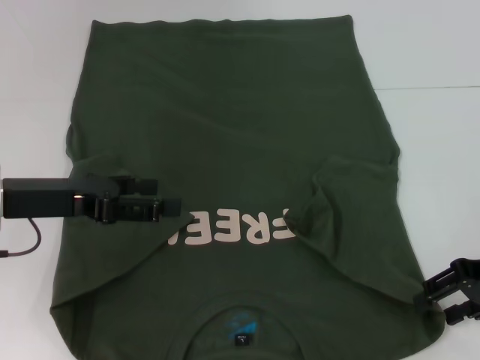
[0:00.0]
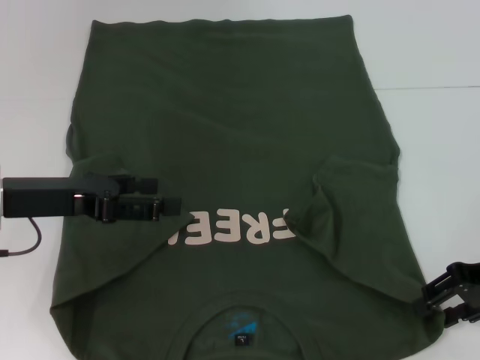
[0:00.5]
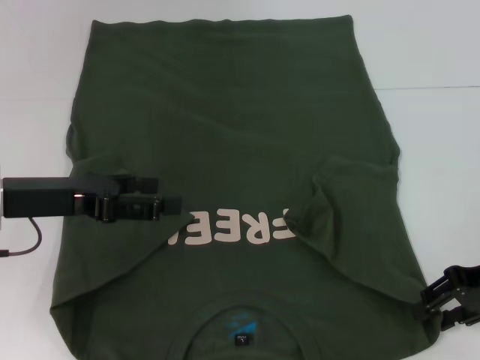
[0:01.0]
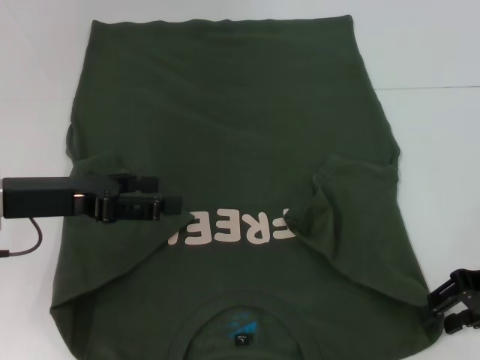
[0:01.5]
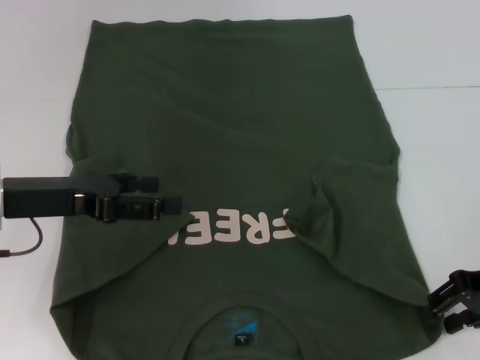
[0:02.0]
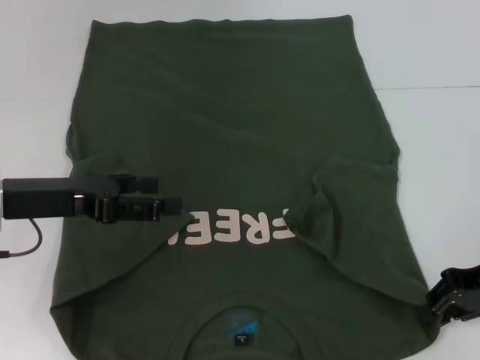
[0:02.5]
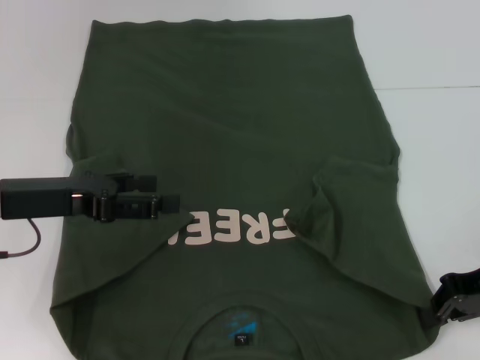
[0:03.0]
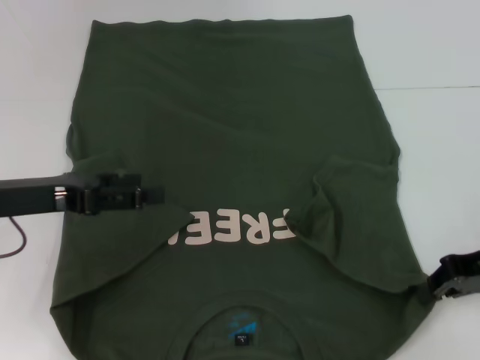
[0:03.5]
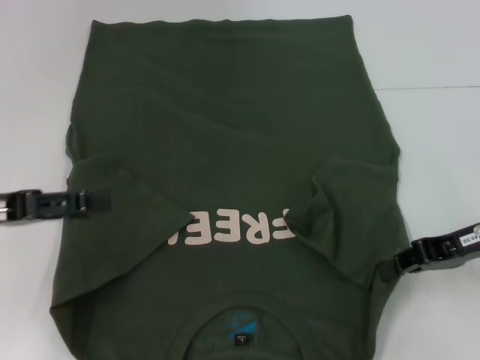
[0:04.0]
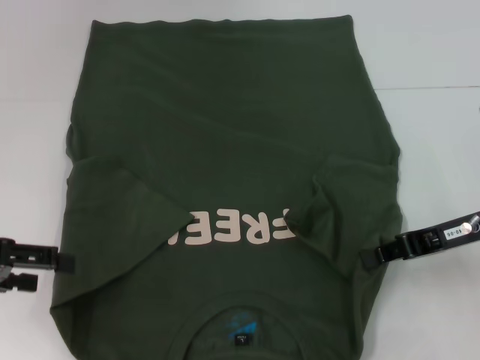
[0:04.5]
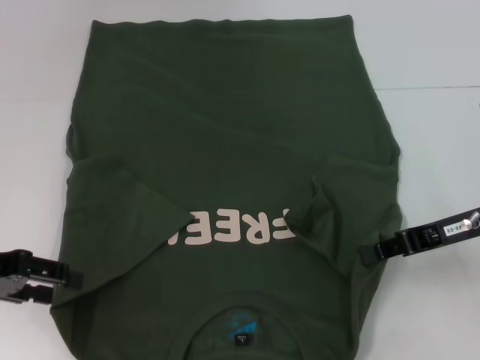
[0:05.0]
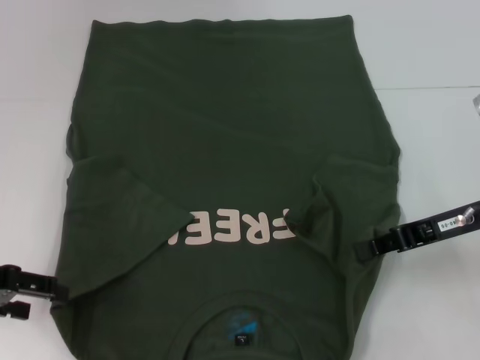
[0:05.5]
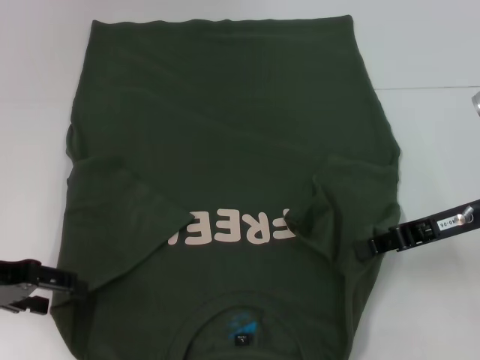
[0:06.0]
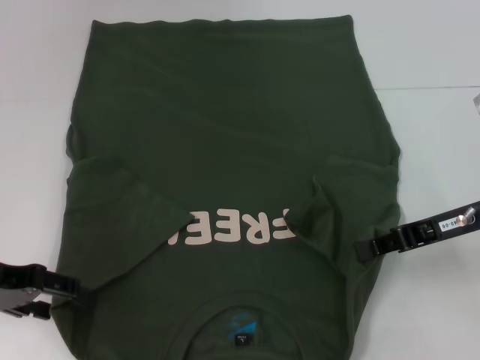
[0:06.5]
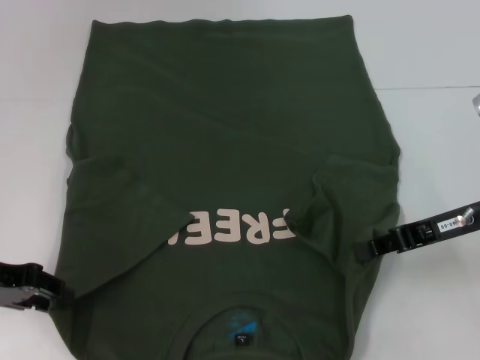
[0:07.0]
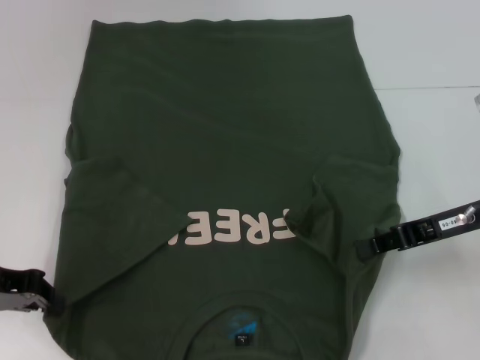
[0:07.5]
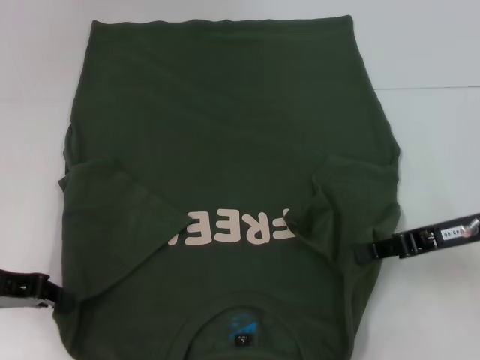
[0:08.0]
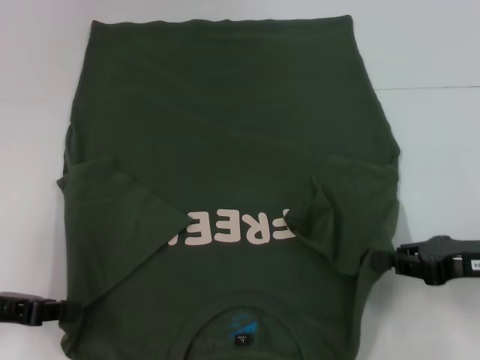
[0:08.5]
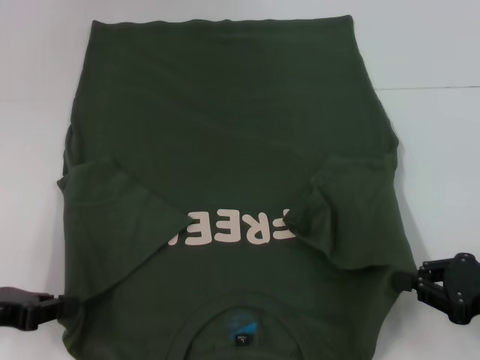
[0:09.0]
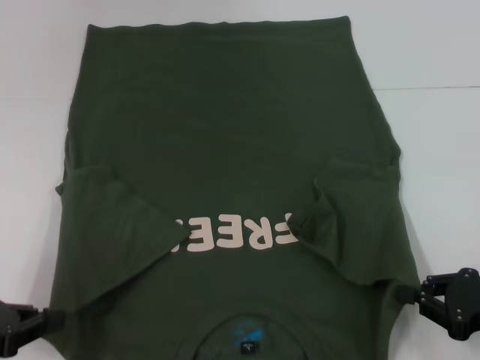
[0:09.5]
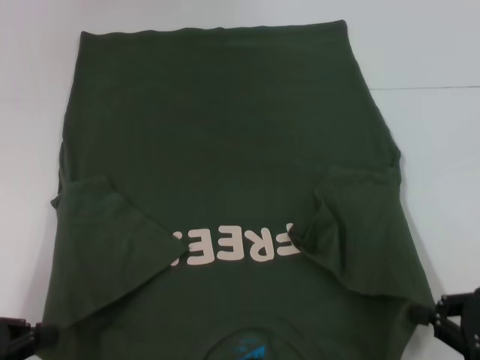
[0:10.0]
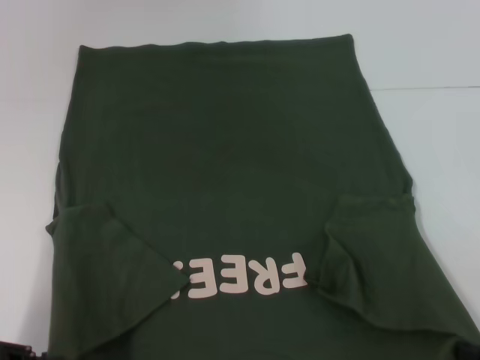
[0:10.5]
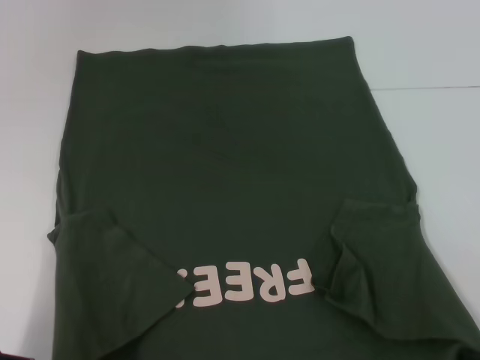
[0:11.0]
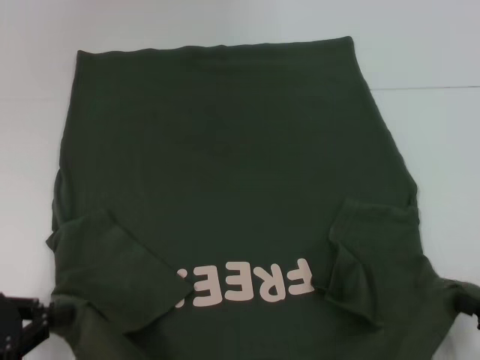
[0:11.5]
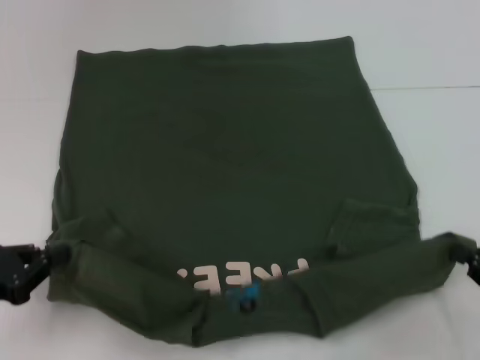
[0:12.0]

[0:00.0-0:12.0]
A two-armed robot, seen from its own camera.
Step, 0:00.0 to 0:02.5: Grab the bottom right corner with your right hand.
Step, 0:03.0 to 0:07.0: Grab the bottom left corner with your left hand.
0:00.0 to 0:02.0: The right gripper closes its fingers.
0:02.0 to 0:04.0: The left gripper travels to the left by about 5 cm. The right gripper closes its fingers.
0:06.0 to 0:08.0: The left gripper closes its fingers.
0:08.0 to 0:10.0: The left gripper is displaced backward by some 10 cm, while the right gripper shifts roughly 15 cm backward, downward and to the right.

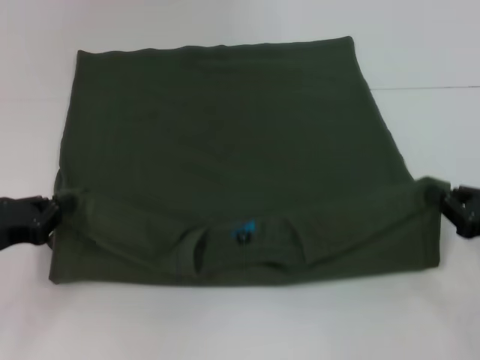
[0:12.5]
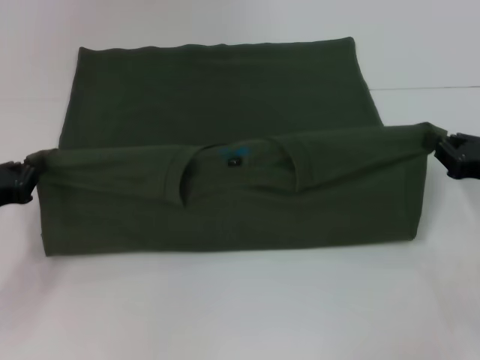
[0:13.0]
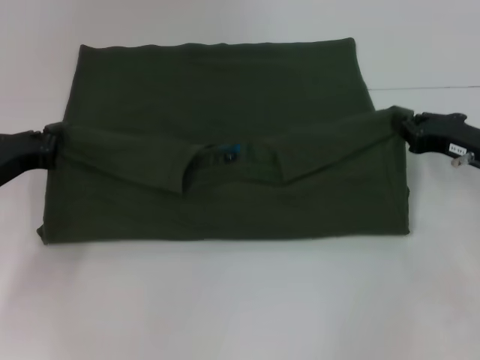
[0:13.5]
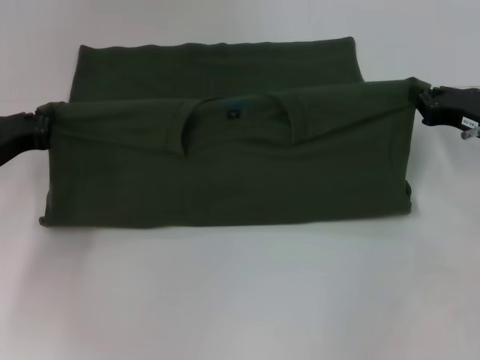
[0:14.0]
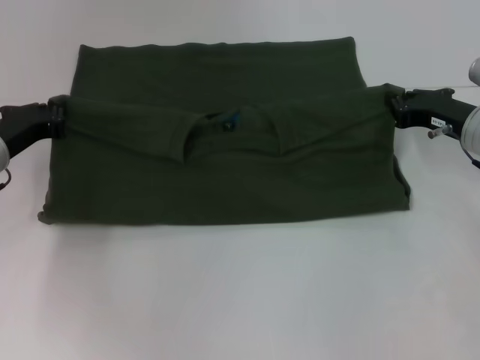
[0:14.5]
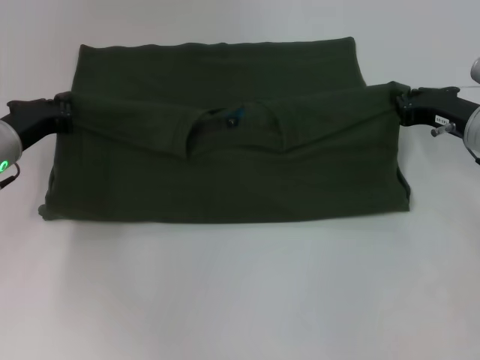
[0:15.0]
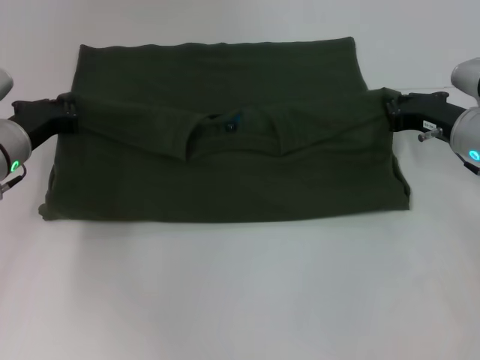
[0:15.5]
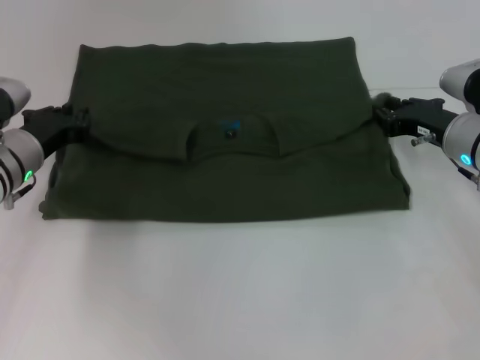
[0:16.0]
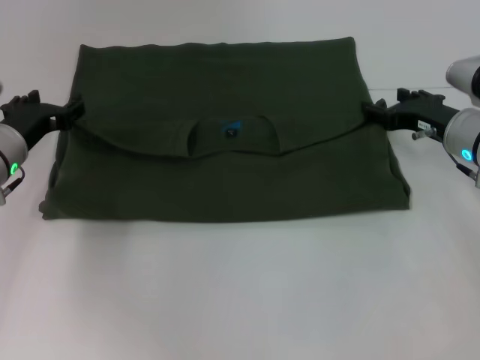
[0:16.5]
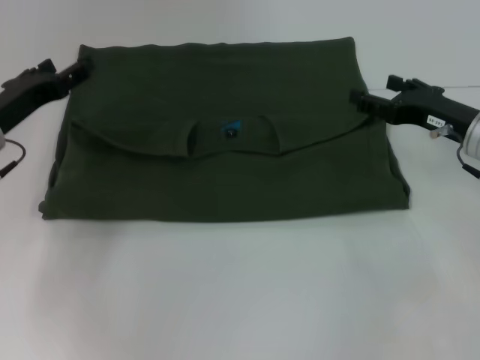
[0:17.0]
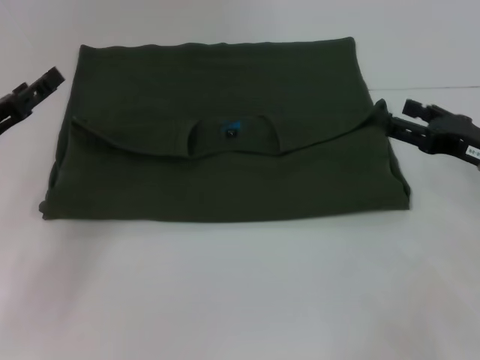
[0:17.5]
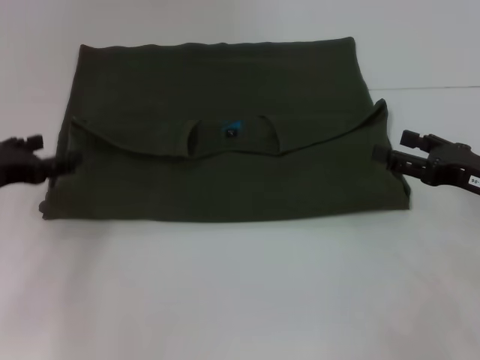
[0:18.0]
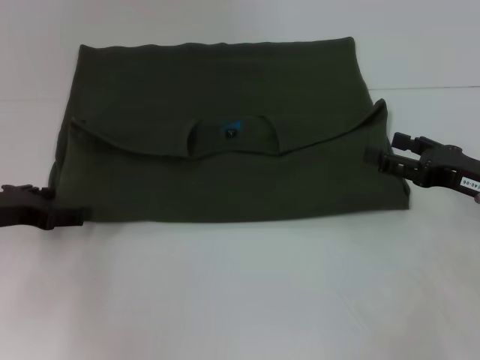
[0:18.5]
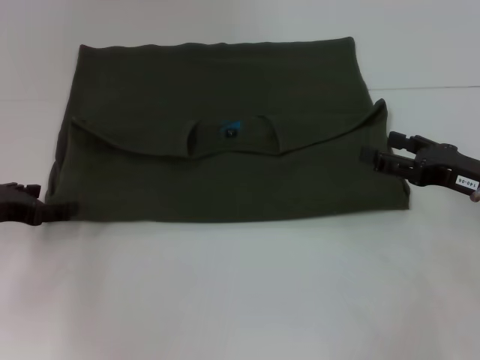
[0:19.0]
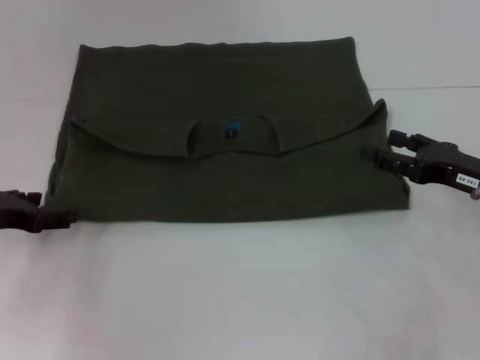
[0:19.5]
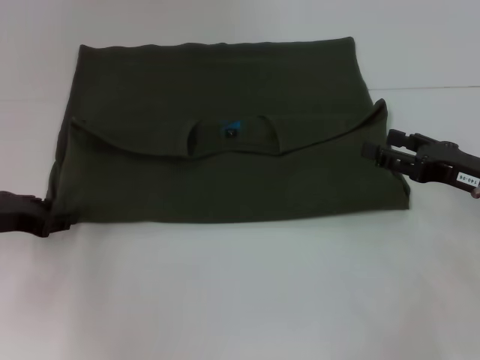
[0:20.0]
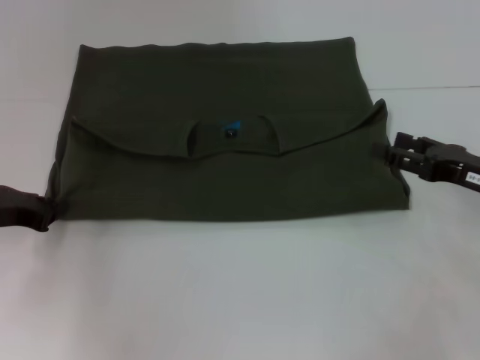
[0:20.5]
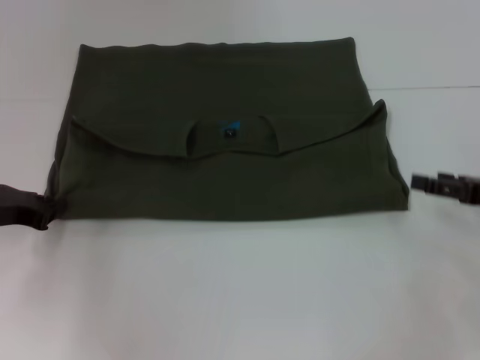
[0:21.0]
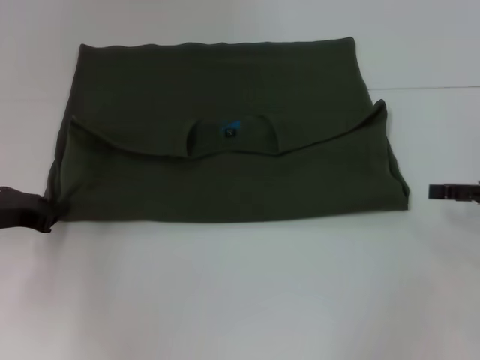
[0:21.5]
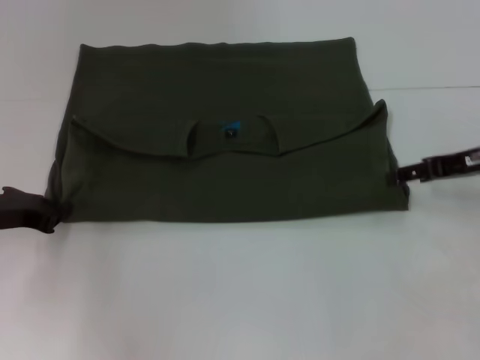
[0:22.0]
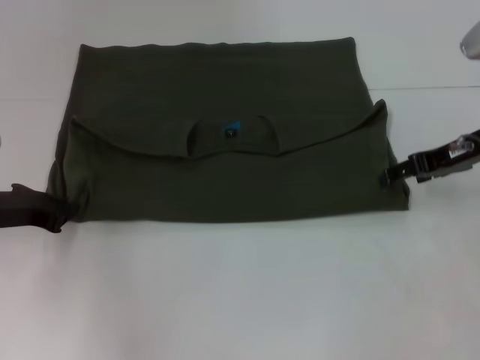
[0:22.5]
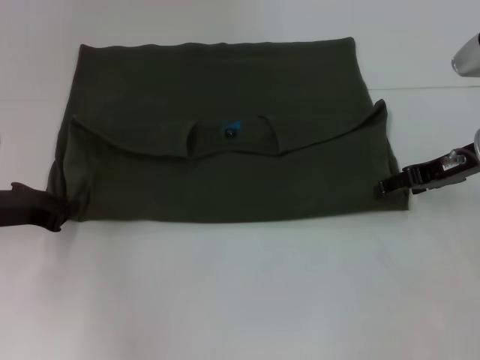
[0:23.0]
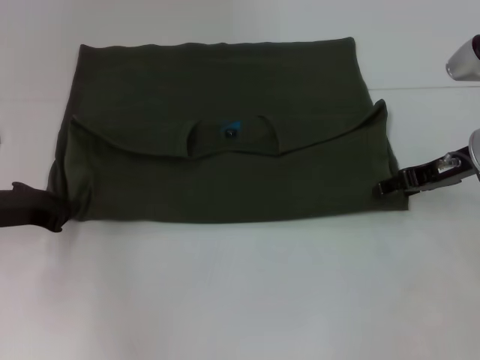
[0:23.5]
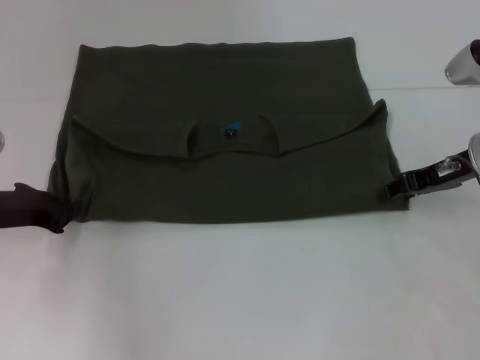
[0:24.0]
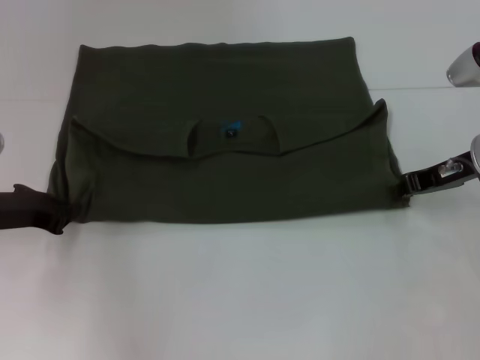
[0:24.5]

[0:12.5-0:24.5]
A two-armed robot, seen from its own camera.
Step, 0:12.5 to 0:16.5: Fold the clothes with your left hand.
Step, 0:12.5 to 0:16.5: Fold the clothes with your right hand.
0:12.5 to 0:14.5: The left gripper moves forward, approximately 10 cm. The right gripper goes approximately 15 cm forward and to the left.
0:14.5 to 0:16.5: The left gripper opens its fingers, while the right gripper opens up.
0:16.5 to 0:18.5: The right gripper travels backward by about 10 cm. The left gripper shifts roughly 5 cm backward.
0:18.5 to 0:20.5: The left gripper closes up.
0:20.5 to 0:22.5: The right gripper shifts some 10 cm forward and upward.
0:22.5 to 0:24.5: The right gripper closes.

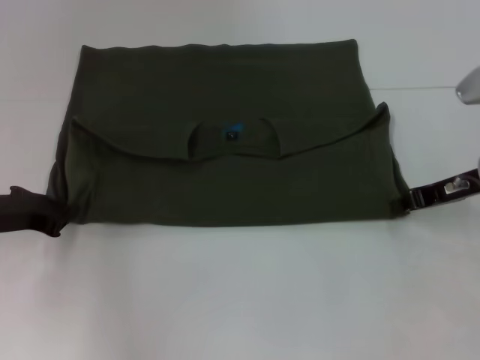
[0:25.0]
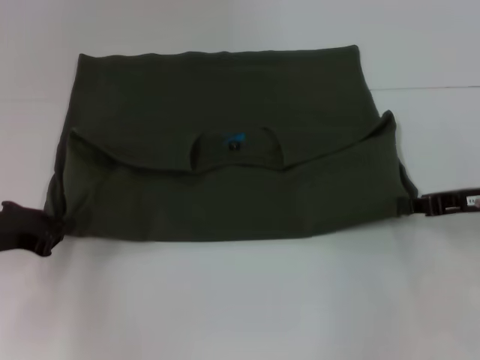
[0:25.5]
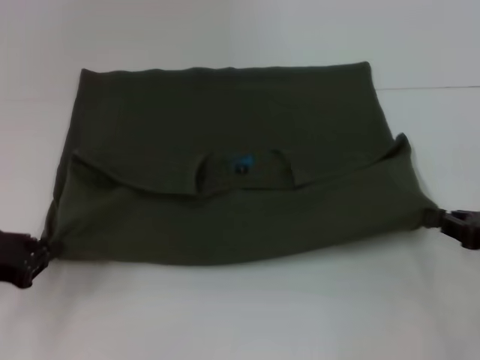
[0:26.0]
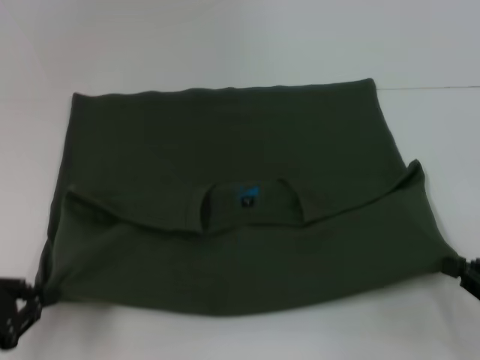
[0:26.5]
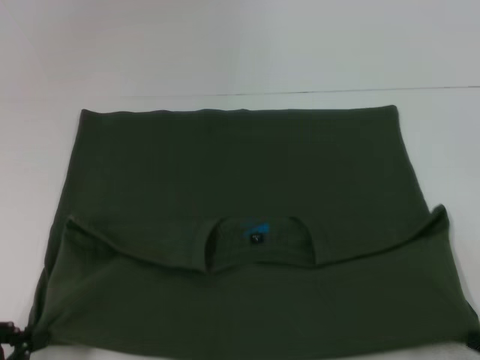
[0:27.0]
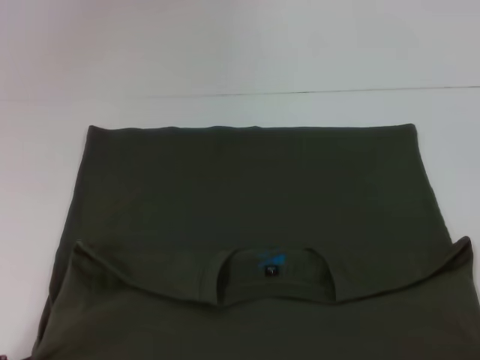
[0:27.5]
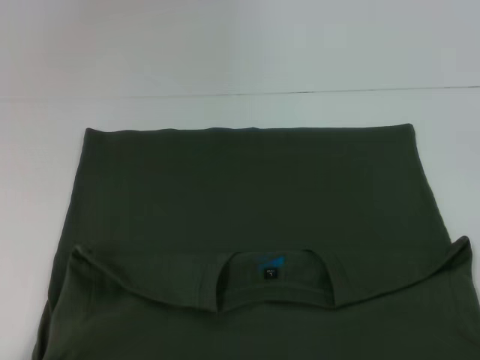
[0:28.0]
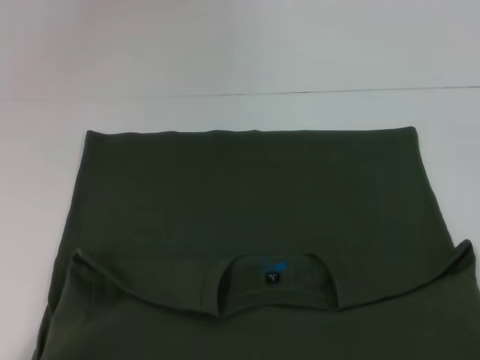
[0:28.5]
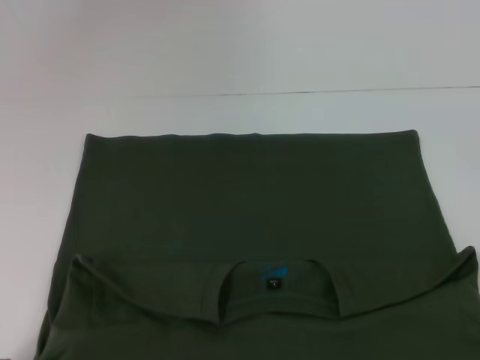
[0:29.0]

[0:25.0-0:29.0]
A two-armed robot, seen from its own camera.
Step, 0:25.0 to 0:28.5: Pull the clothes with your left hand.
Step, 0:25.0 to 0:28.5: Pull the clothes with your right hand.
0:25.0 to 0:27.0: The two grippers go roughly 20 cm backward.
0:27.0 to 0:29.0: The right gripper shifts roughly 5 cm backward.
